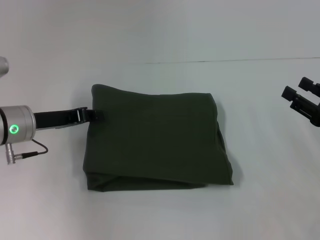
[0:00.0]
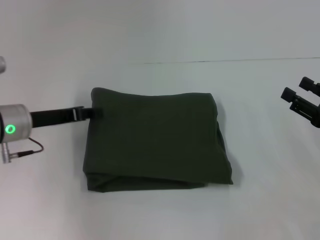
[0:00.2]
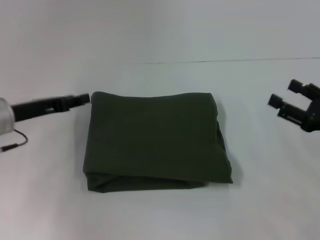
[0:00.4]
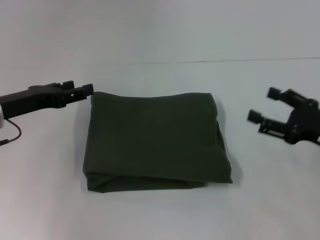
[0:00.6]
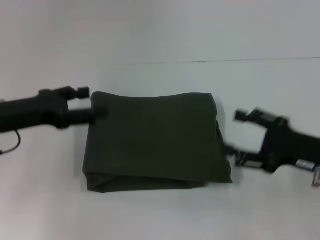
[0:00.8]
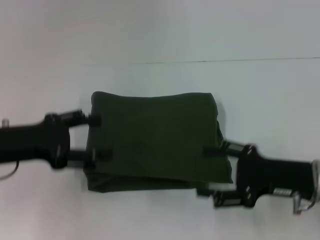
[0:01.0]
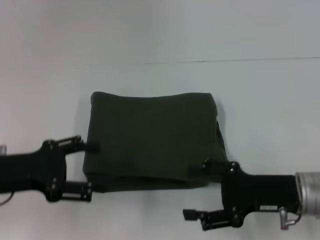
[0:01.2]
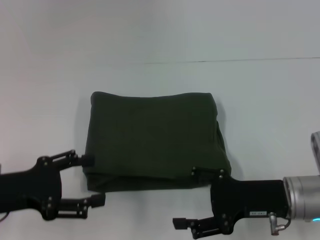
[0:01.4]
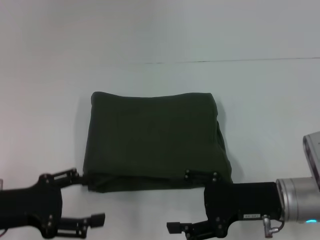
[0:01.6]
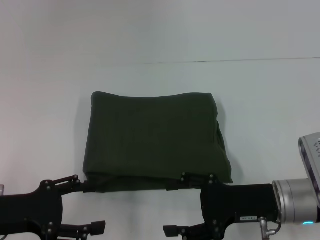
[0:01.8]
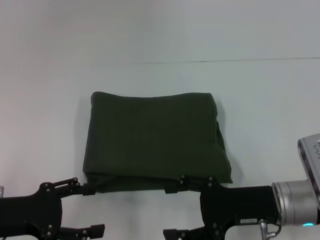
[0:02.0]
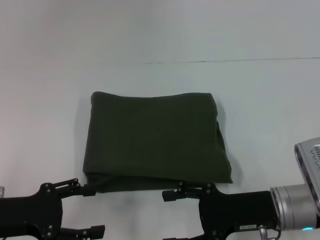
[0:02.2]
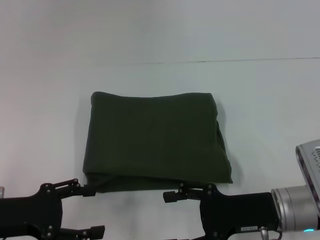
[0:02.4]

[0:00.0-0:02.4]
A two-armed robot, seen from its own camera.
0:00.0 to 0:01.2: The right gripper travels to the left by roughly 10 cm; the left gripper moves backward, about 10 cm, and opens.
0:01.2 to 0:02.4: The grippers stay close to where they were, moving slightly.
